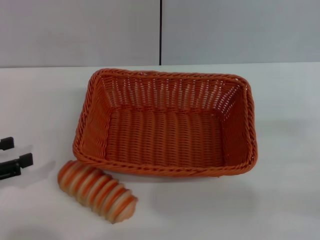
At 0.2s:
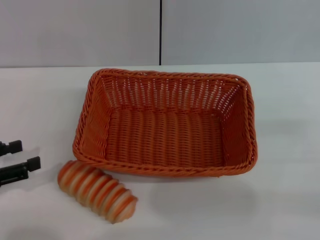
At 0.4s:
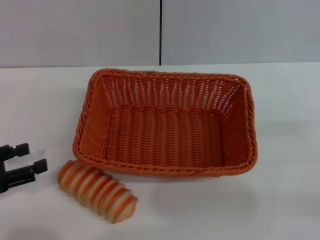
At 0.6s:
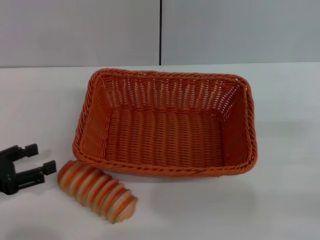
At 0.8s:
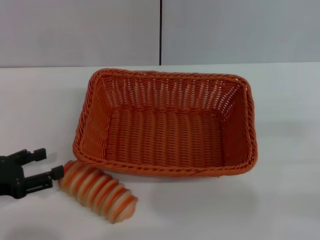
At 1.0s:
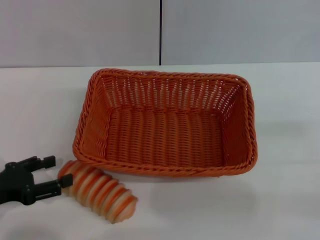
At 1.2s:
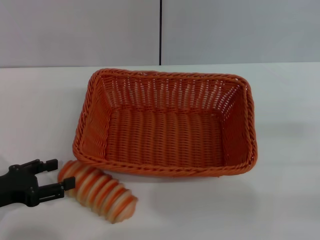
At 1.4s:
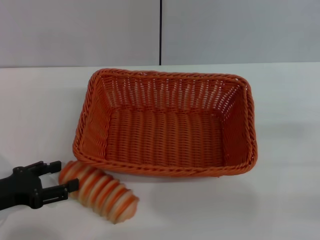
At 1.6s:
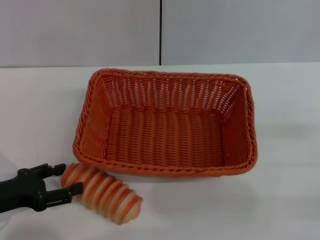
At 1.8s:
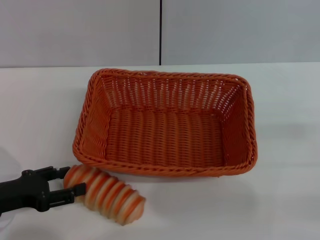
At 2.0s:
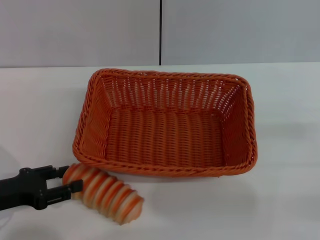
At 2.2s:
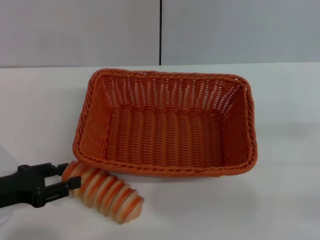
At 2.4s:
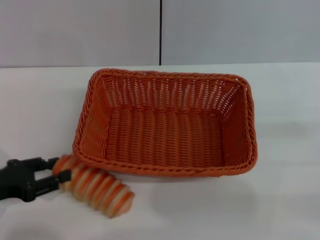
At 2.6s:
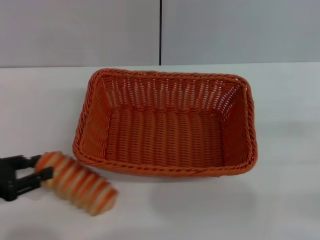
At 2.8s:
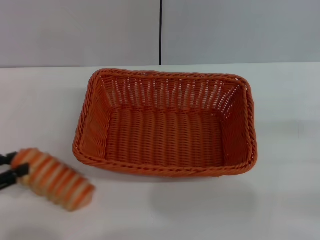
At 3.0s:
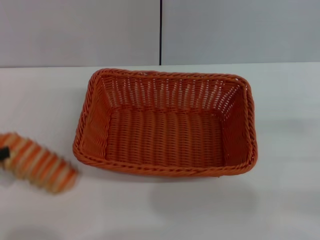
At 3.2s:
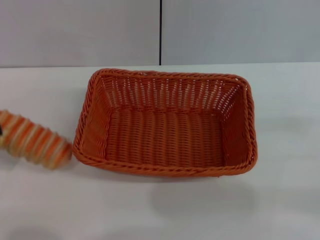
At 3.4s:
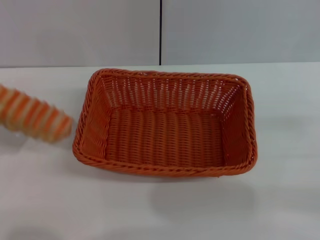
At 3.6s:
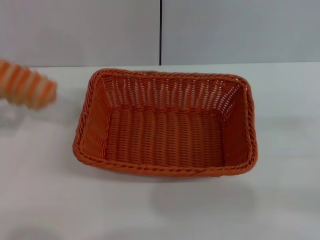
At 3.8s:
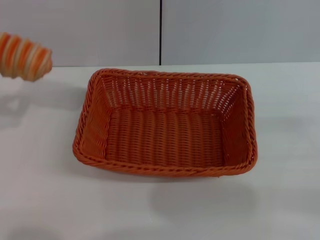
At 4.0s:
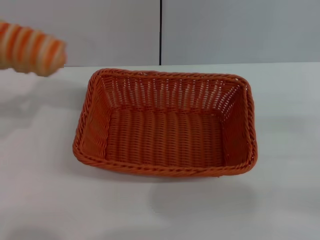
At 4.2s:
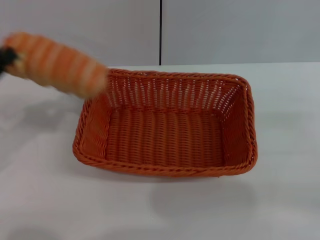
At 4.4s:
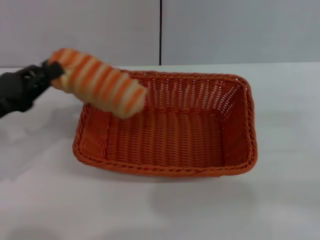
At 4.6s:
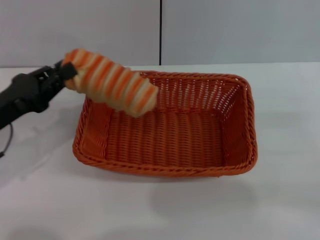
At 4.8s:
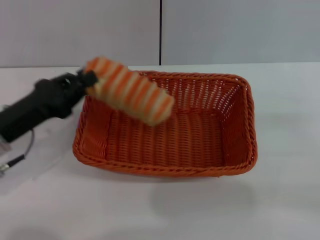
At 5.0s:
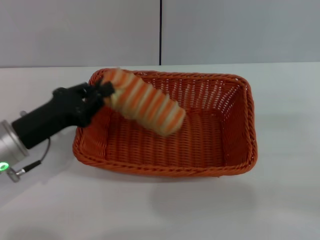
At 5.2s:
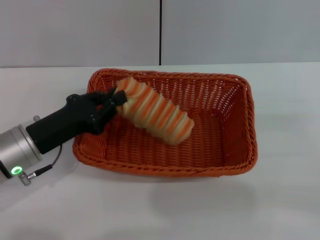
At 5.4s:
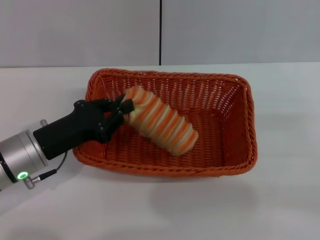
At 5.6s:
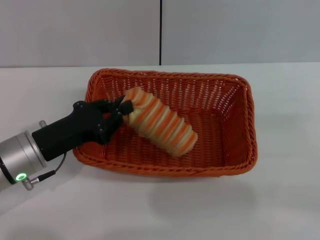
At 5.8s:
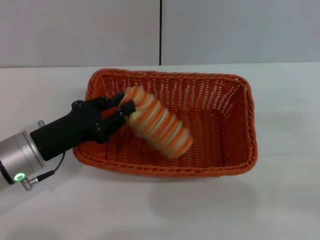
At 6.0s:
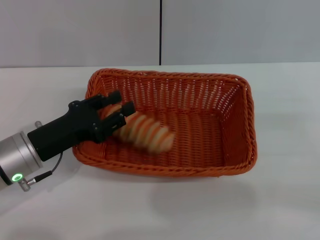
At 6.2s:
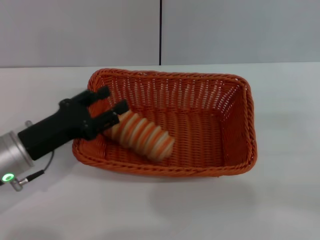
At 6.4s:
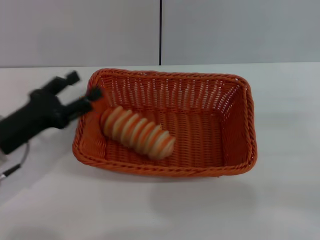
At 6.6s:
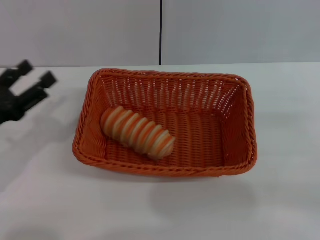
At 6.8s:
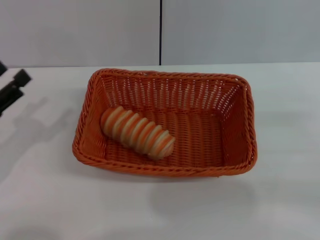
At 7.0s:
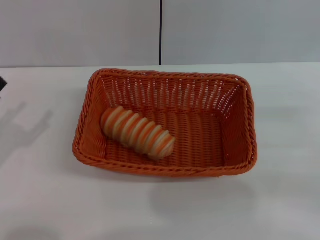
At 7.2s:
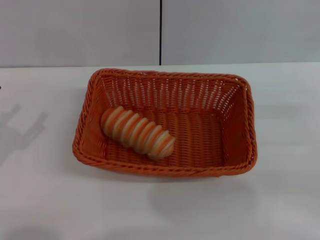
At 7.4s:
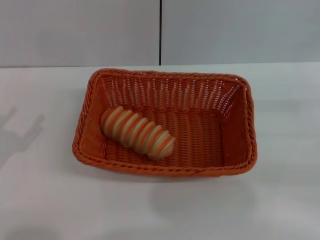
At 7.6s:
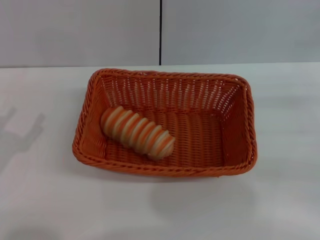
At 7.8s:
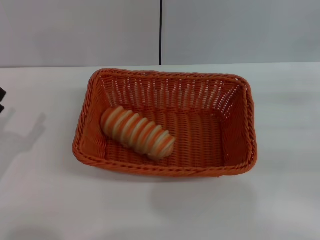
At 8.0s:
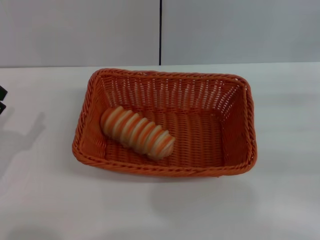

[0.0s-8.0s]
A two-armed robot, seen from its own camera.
Step, 0.0s to 3.8s: Pick up the long bread with the left gripper.
Step, 4.0s to 6.0s: Place the long bread into the light basket with the left gripper.
0.0s to 1.6s: The left gripper travels downward and to the right by roughly 10 cm.
1.6s to 3.2s: The left gripper travels to the left and upward by some 10 cm, and closes.
3.2s to 4.8s: The left gripper shifts approximately 15 cm to the right and forward.
4.8s to 6.4s: The left gripper opens up.
6.4s to 8.0s: The left gripper is displaced backward and to the left by about 10 cm.

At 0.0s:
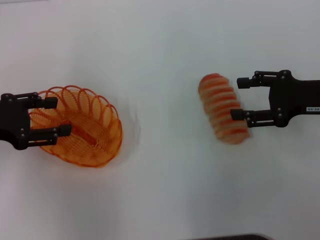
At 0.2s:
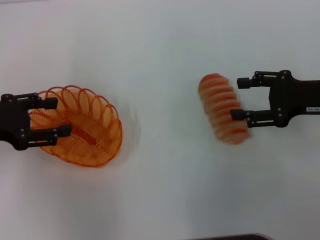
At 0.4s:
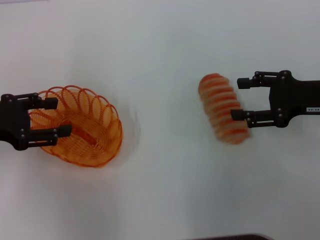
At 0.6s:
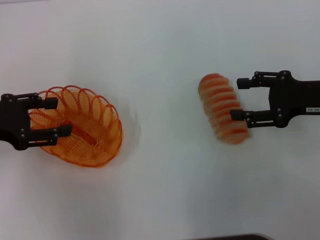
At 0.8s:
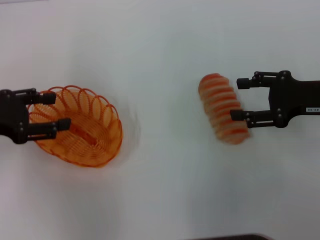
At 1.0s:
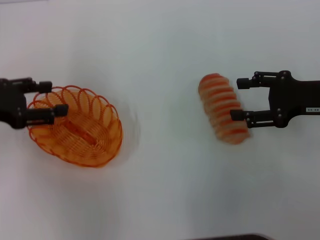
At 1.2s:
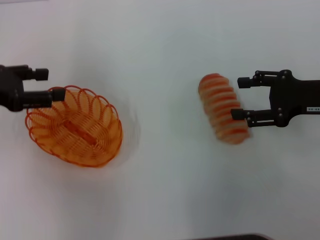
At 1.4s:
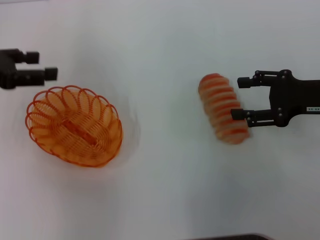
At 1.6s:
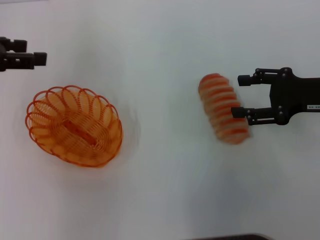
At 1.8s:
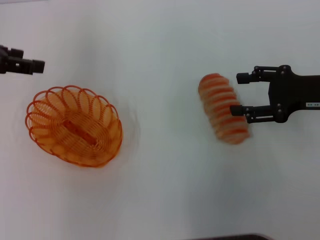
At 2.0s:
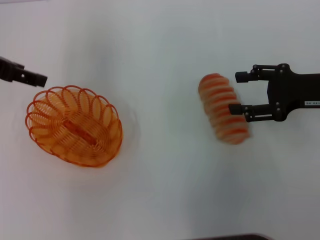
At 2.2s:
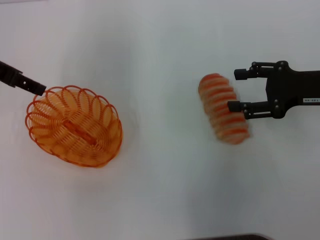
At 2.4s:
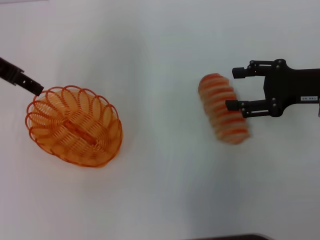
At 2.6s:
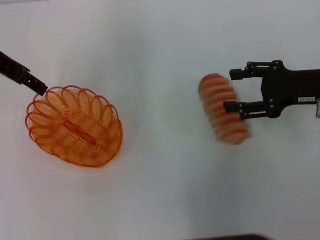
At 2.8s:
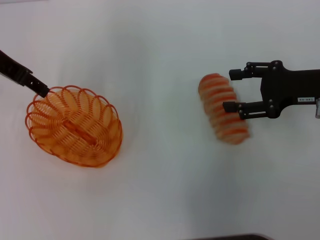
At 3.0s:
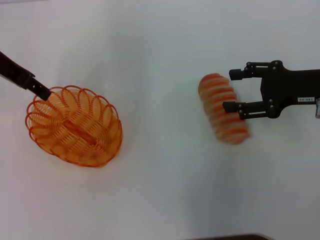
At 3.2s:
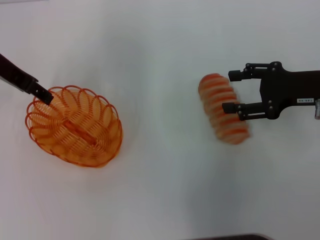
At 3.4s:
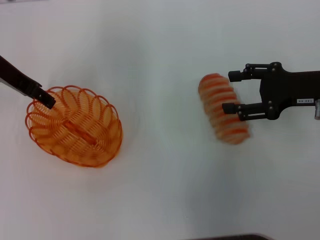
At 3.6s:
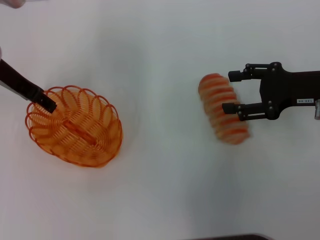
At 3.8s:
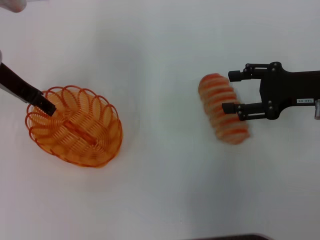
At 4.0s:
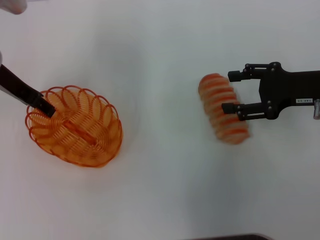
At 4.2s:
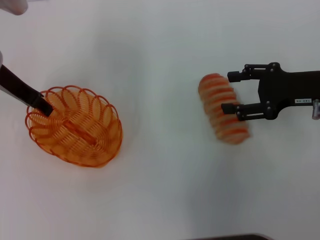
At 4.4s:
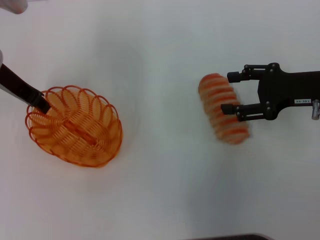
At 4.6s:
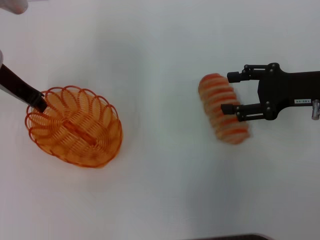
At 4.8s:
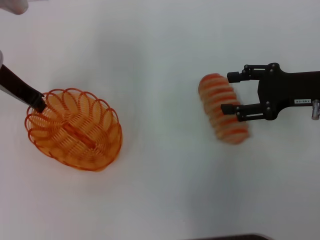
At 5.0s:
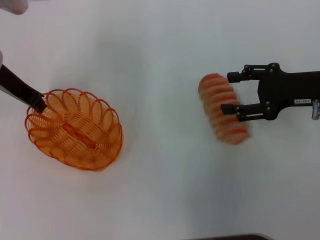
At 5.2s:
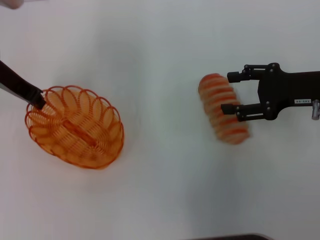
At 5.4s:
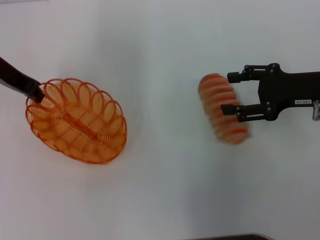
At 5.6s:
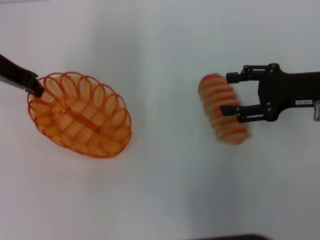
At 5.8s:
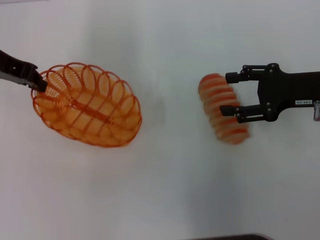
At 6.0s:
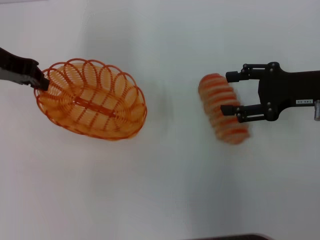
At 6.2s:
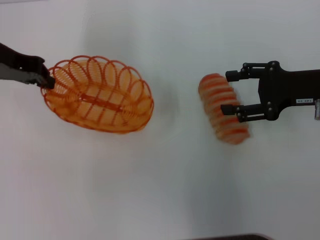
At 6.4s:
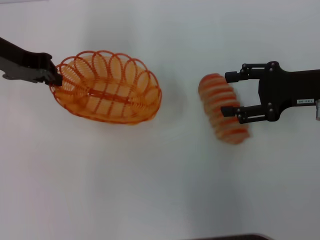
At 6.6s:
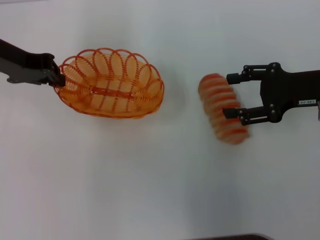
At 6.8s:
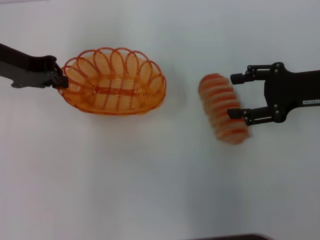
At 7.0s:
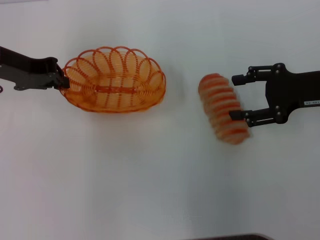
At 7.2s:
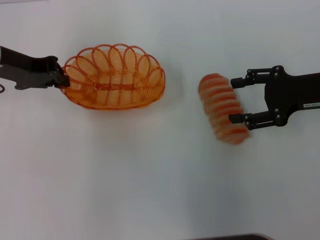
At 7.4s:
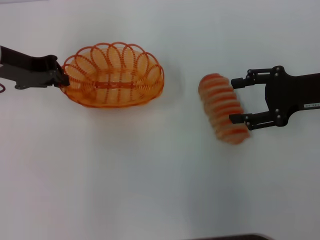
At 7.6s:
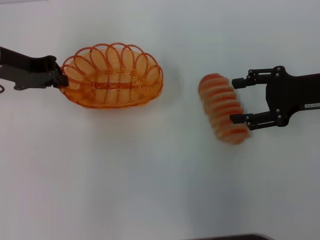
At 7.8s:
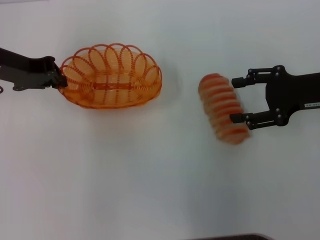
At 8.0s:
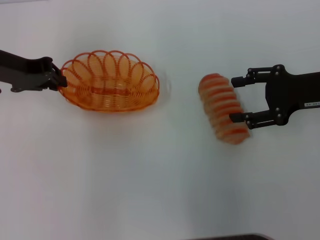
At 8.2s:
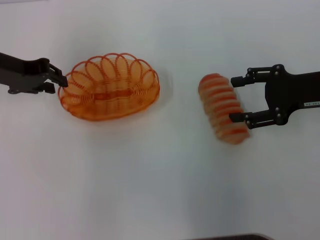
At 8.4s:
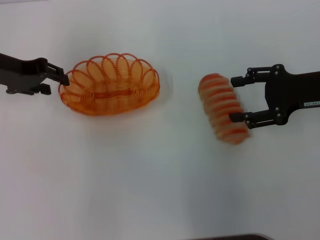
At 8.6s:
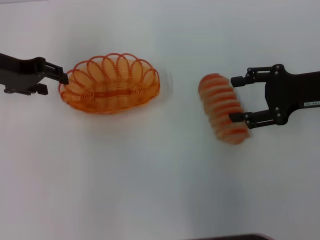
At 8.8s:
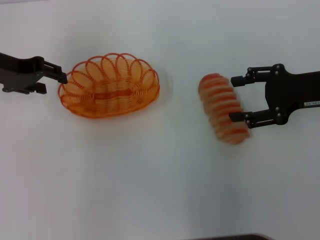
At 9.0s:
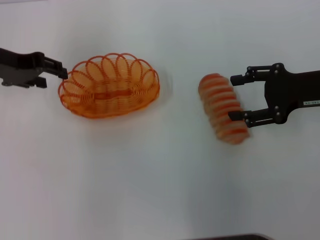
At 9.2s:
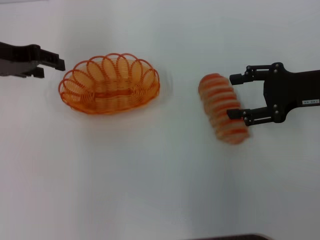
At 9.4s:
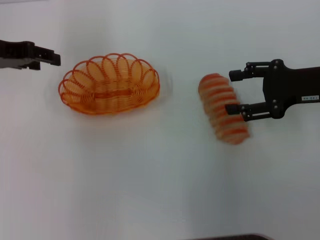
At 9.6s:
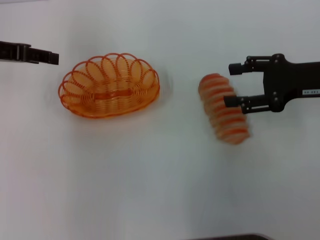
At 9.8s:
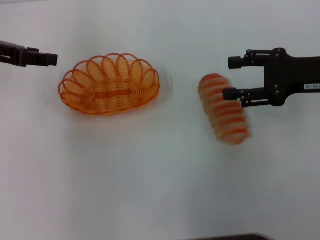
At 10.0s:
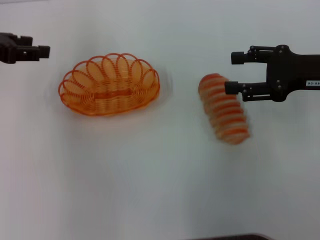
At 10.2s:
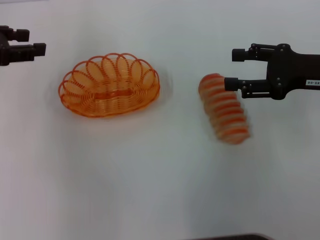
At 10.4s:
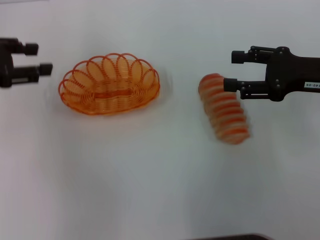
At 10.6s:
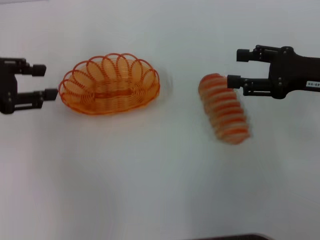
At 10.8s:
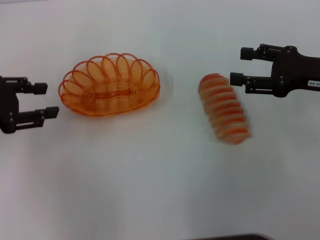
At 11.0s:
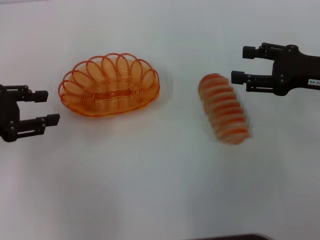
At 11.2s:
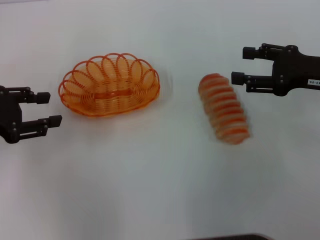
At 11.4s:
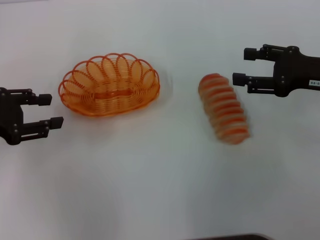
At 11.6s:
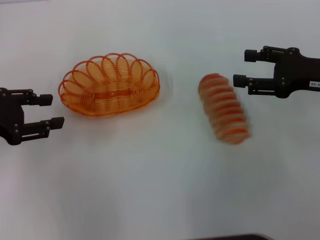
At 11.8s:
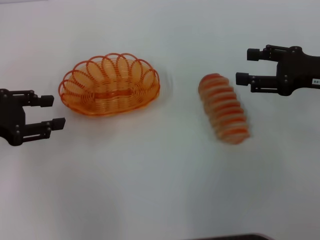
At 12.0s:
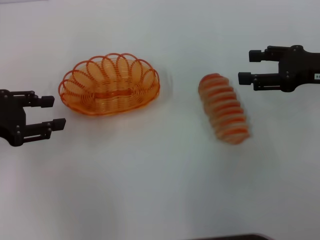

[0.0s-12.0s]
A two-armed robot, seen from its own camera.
Step, 0.0s to 5.6s: Pick up the basket with the left gripper.
Step, 5.8s to 9.2s: Place the basket in the center of view with the left gripper.
0.0s to 1.6s: The left gripper goes some 10 cm upward and forward.
1.6s to 3.0s: The left gripper moves to the right, roughly 10 cm.
3.0s to 4.4s: There are only small adjustments of the grippers.
4.4s to 6.0s: The left gripper closes.
7.6s to 9.0s: The left gripper opens.
9.0s to 10.4s: The left gripper moves to the left, roughly 5 cm.
10.4s to 12.0s: The left gripper moves backward, about 5 cm.

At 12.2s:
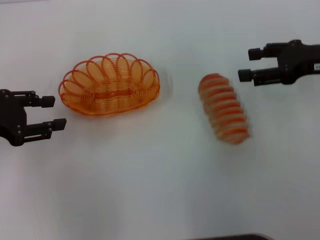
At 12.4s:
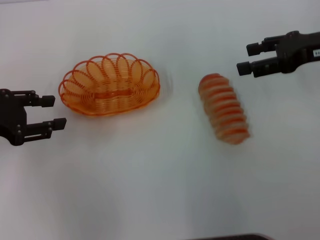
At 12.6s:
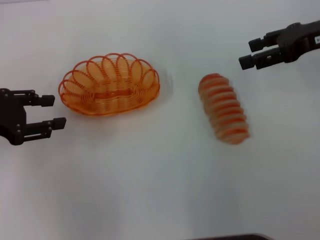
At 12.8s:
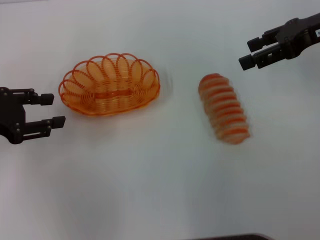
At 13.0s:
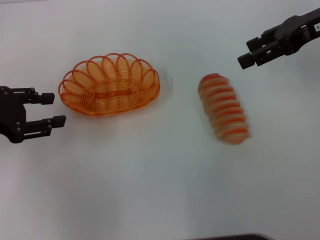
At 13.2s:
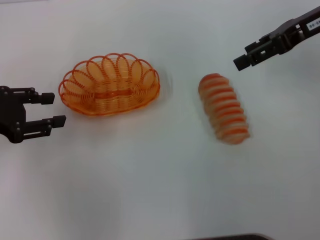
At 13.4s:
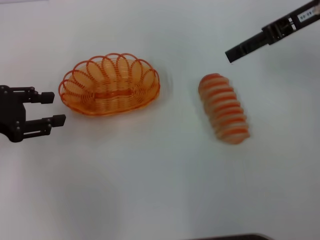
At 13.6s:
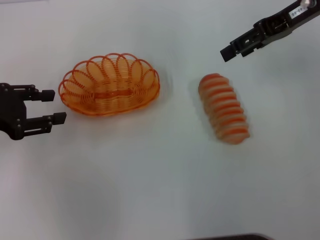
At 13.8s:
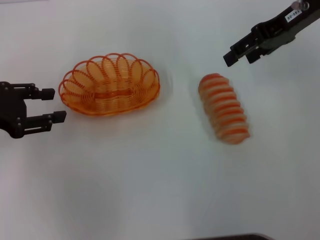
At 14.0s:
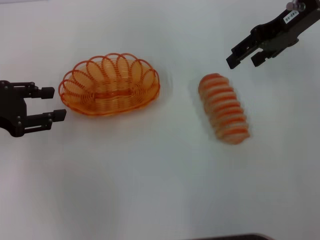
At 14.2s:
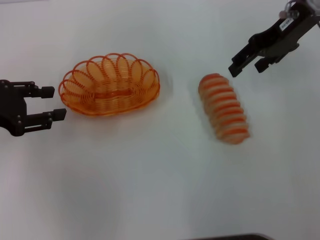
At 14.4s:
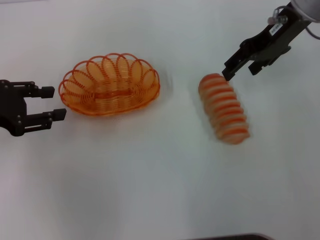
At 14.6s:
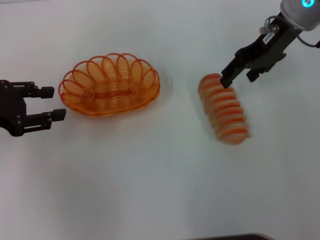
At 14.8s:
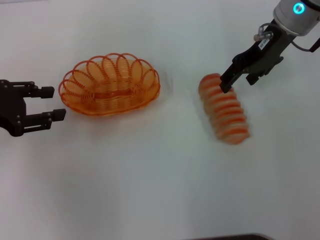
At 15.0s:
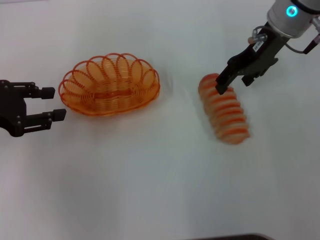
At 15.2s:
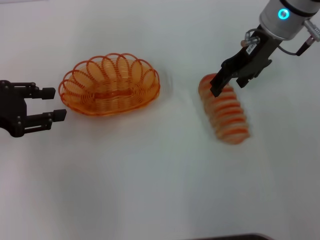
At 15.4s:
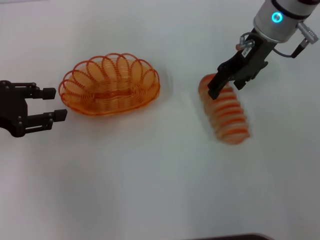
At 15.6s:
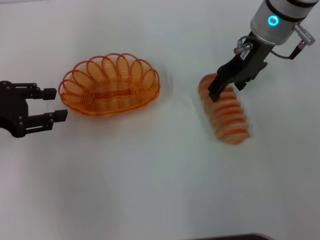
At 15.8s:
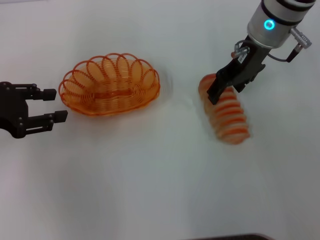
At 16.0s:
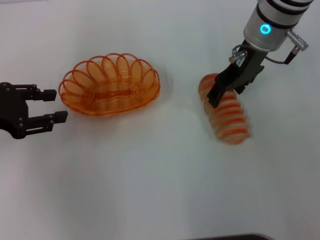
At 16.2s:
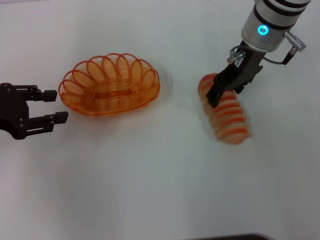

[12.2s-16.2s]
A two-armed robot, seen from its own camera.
12.2s to 13.6s: The right gripper shifts roughly 10 cm upward, forward and to the left.
13.6s to 14.8s: The right gripper moves to the left, some 5 cm.
14.8s to 16.2s: The right gripper changes place by roughly 5 cm.
